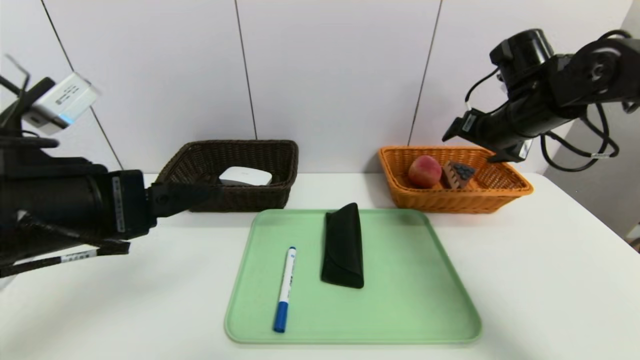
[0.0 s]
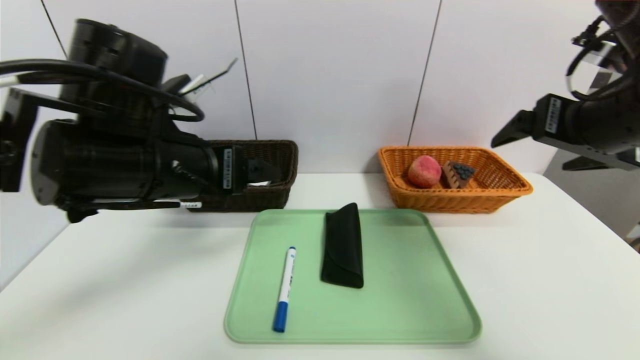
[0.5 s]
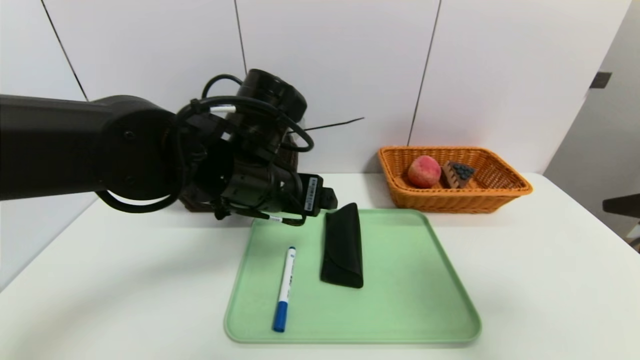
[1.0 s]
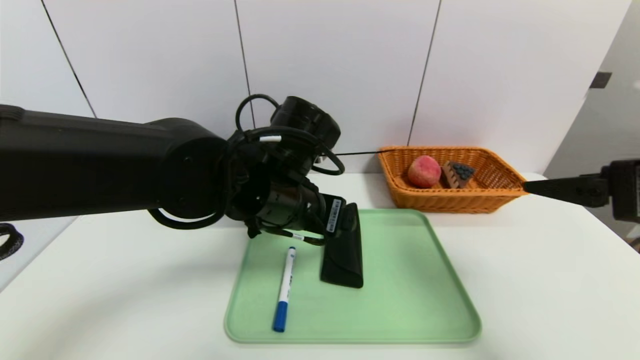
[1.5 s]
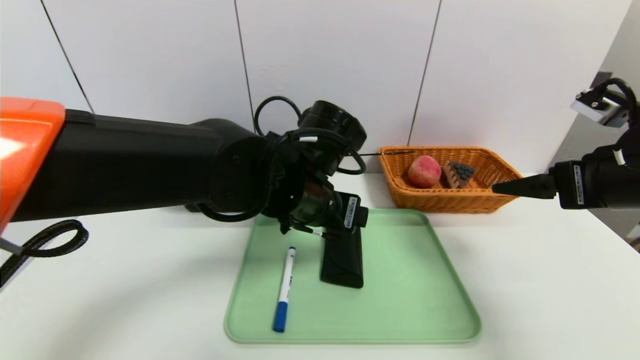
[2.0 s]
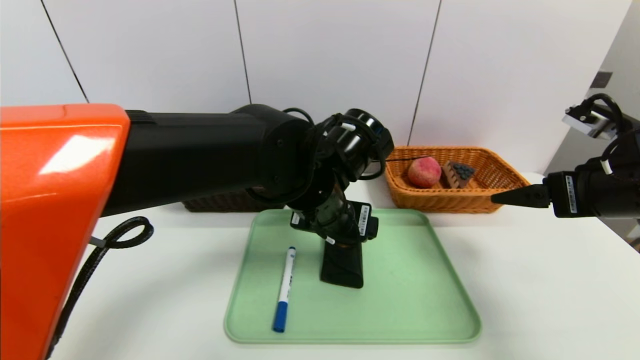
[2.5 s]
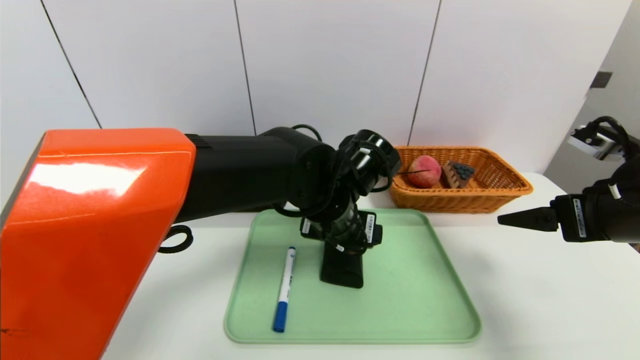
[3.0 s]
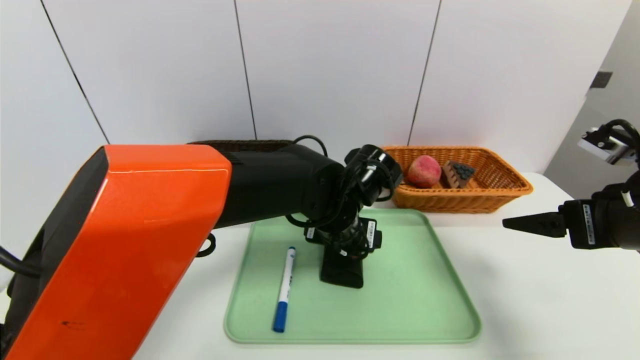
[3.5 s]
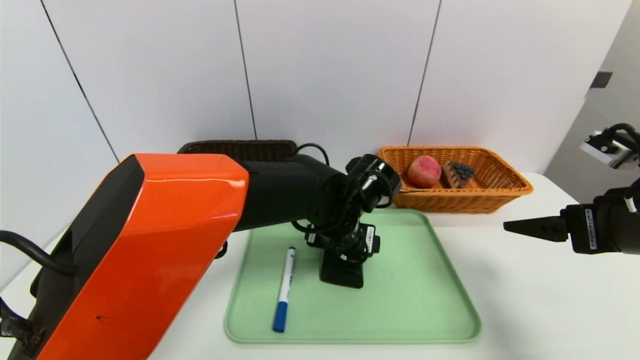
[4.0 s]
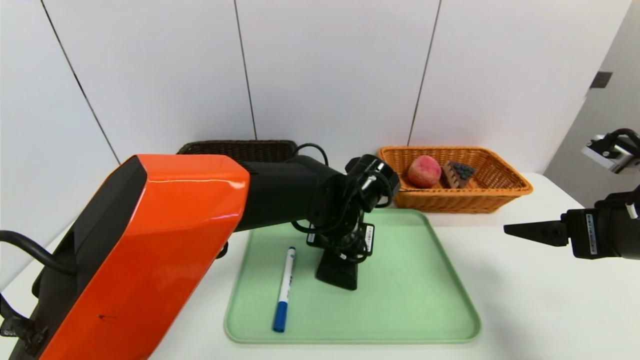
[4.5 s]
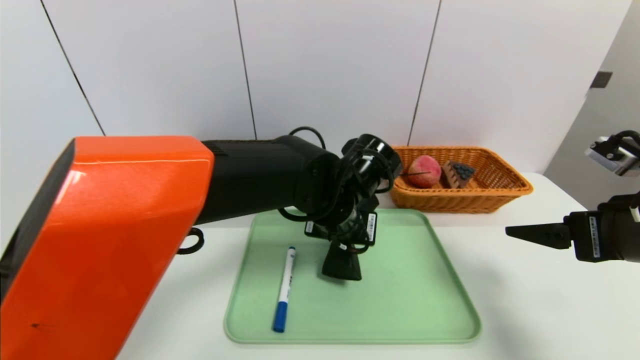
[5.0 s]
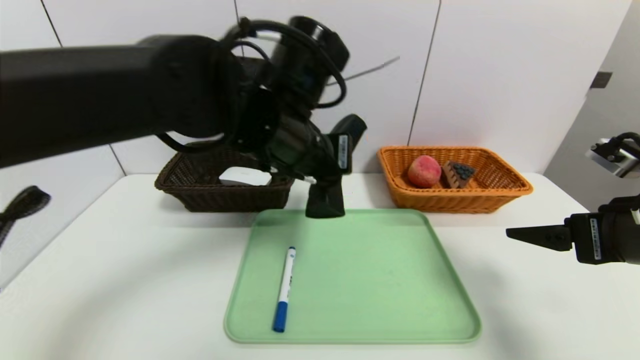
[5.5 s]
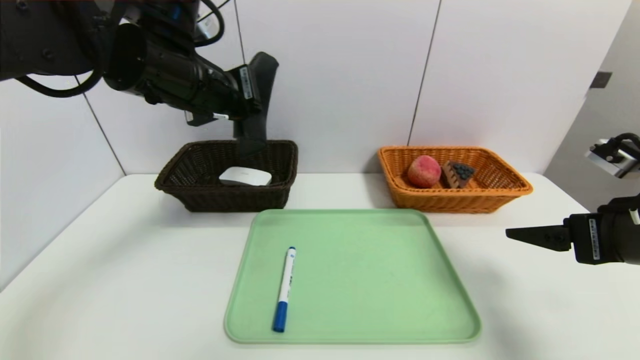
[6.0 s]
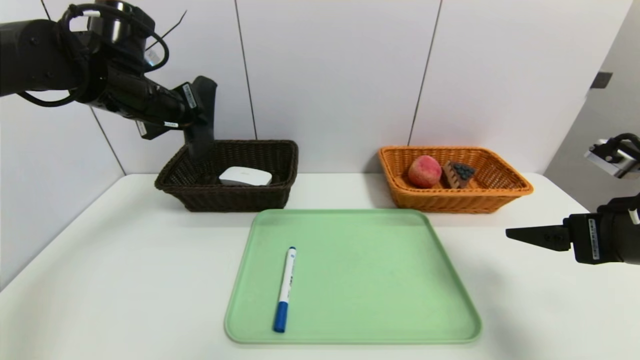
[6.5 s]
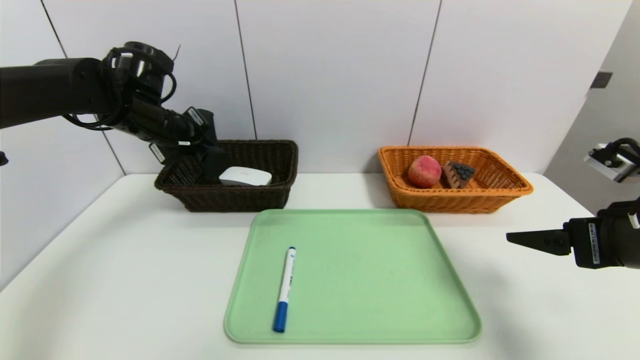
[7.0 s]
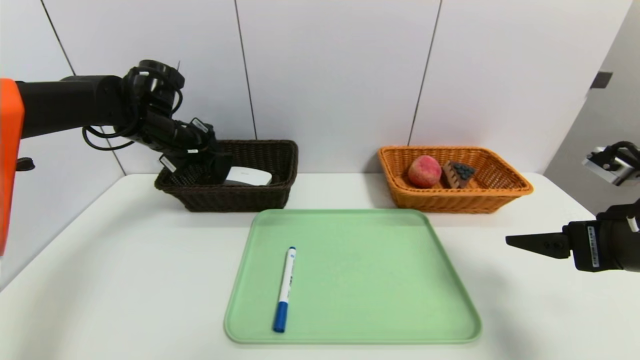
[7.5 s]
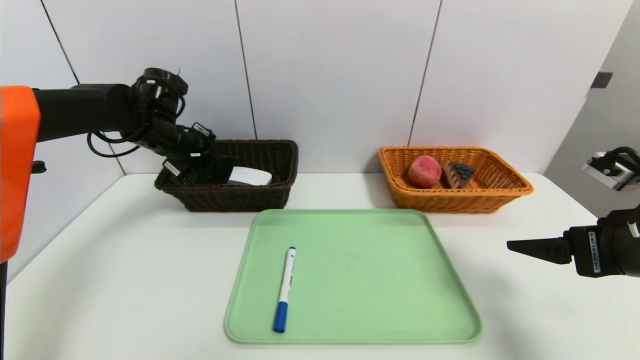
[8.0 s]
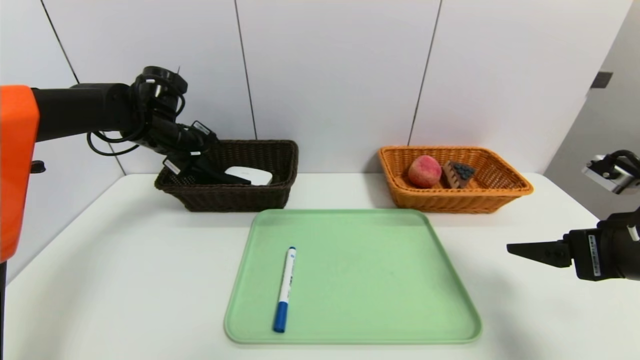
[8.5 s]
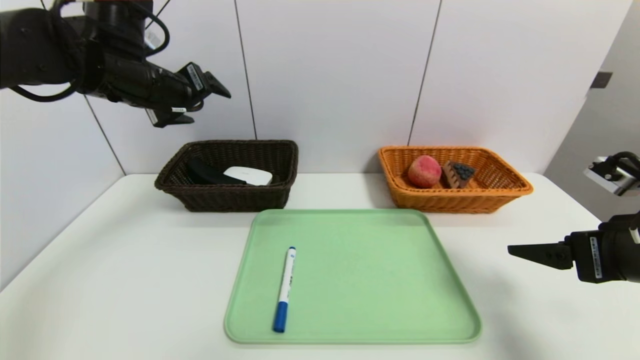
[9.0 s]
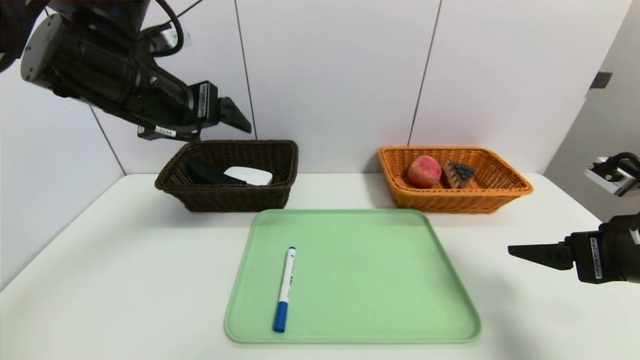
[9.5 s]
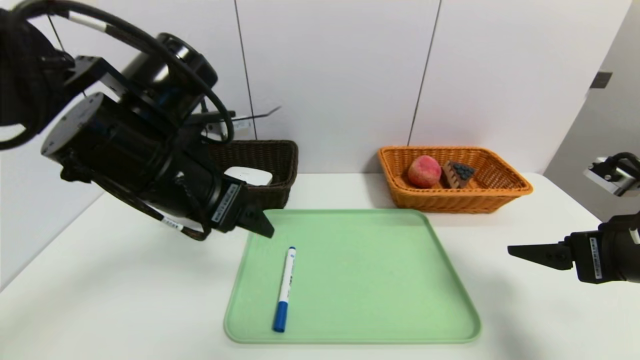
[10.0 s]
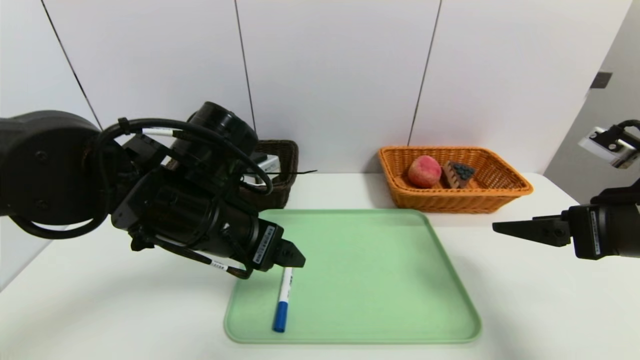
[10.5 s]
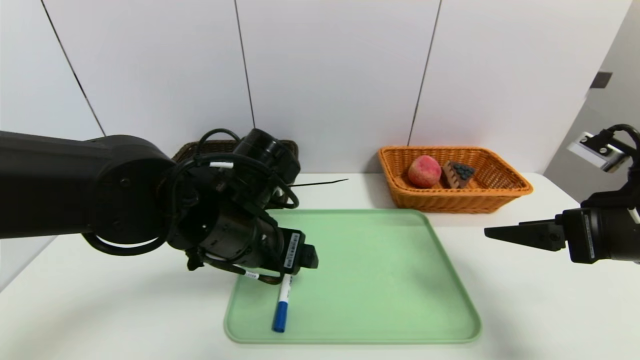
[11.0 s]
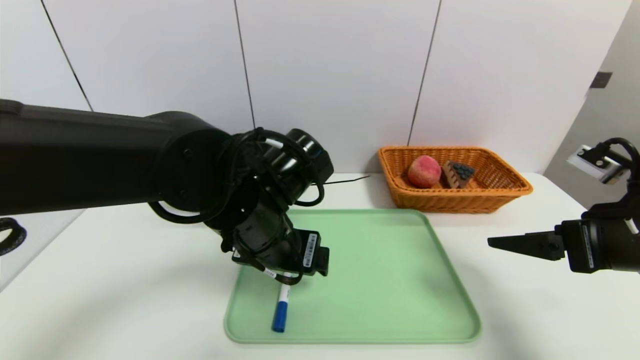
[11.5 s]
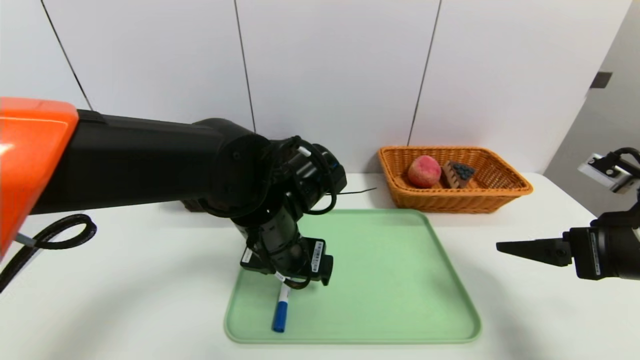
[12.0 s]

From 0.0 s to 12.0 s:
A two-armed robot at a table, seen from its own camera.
Task of the whole recording: place the food in the right basket with the right gripper, and place the non food items in the left basket with the left gripper.
Step, from 0.0 s to 8.5 s: Grasp the glasses case and put it in the left basket.
From 0.0 s to 2.0 s: The left gripper is displaced to the right and forward by roughly 25 cm, while the right gripper is displaced backward by some 15 cm.
From 2.0 s to 4.0 s: The left gripper travels downward and to the right by roughly 10 cm.
From 4.0 s to 6.0 s: The left gripper heads upward and to the left, covering approximately 25 cm, and closes its fingers.
From 6.0 s to 8.0 s: The left gripper heads forward, downward and to the left, covering approximately 20 cm.
From 8.0 s to 10.0 s: The left gripper travels backward and to the right by roughly 20 cm, and opens its fingers.
From 10.0 s to 12.0 s: The left gripper is displaced to the right and downward by approximately 15 cm.

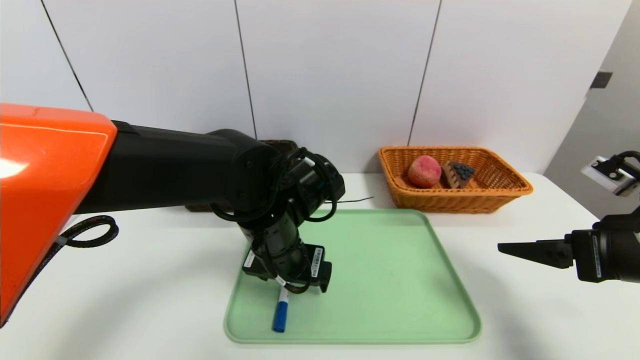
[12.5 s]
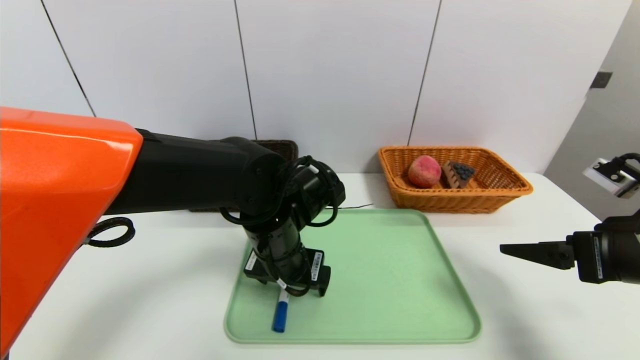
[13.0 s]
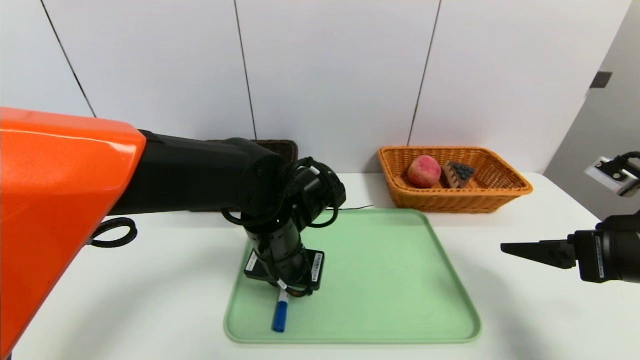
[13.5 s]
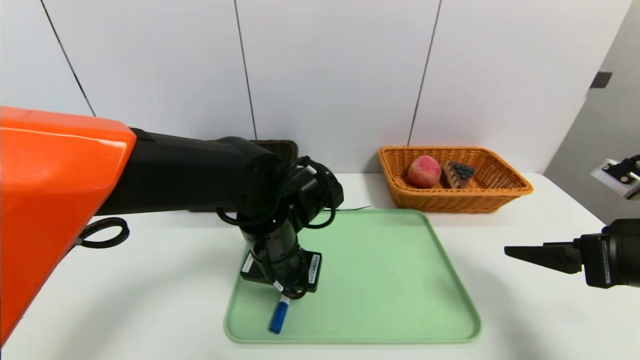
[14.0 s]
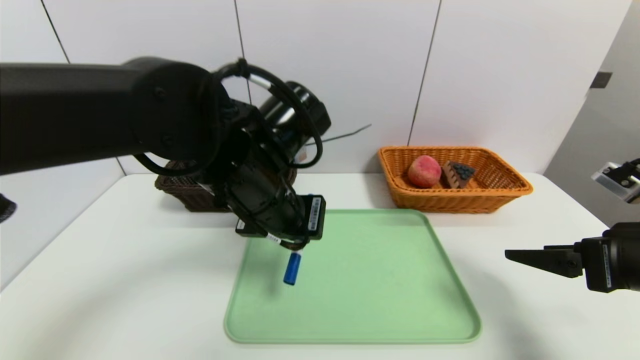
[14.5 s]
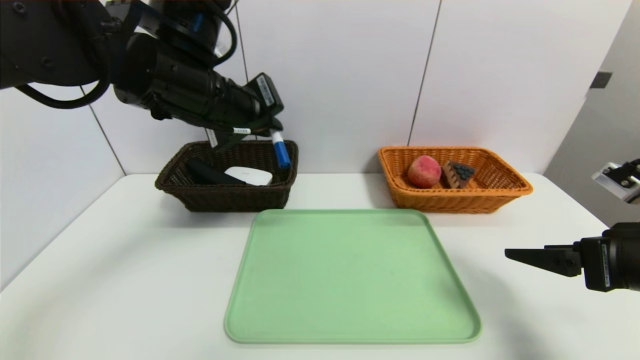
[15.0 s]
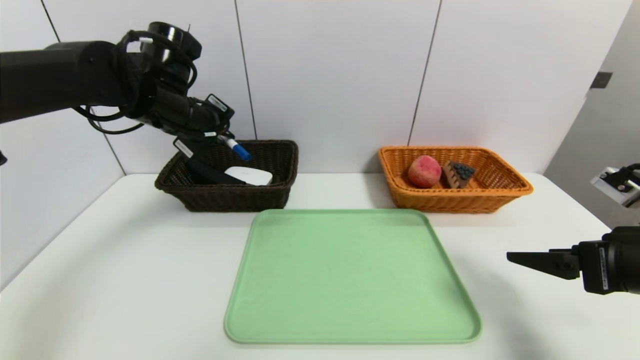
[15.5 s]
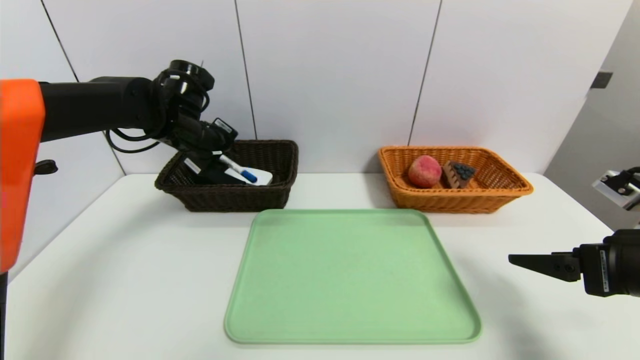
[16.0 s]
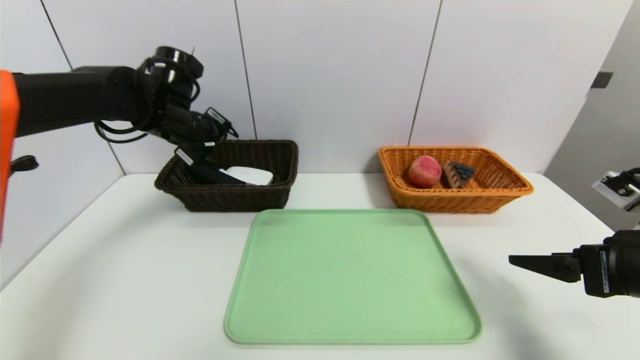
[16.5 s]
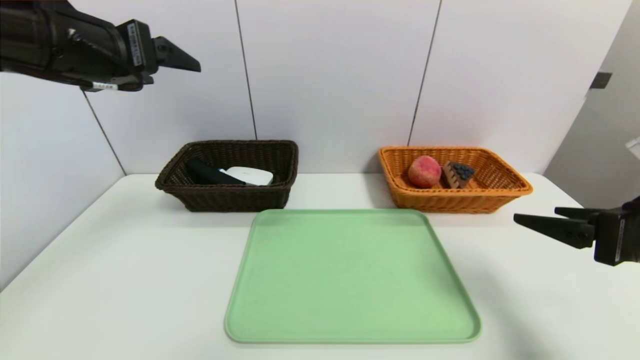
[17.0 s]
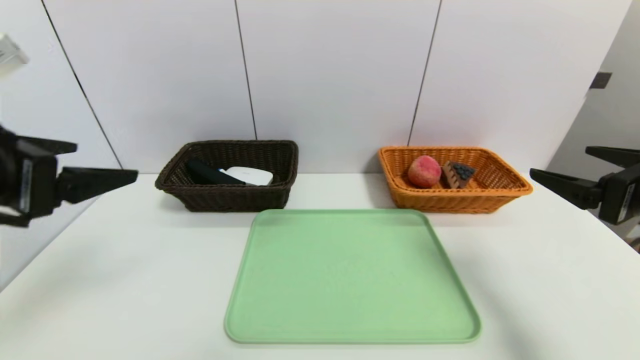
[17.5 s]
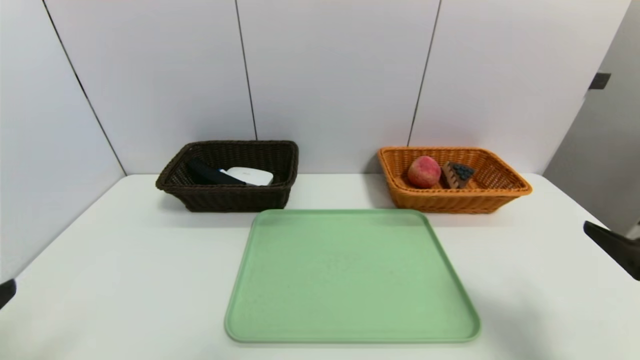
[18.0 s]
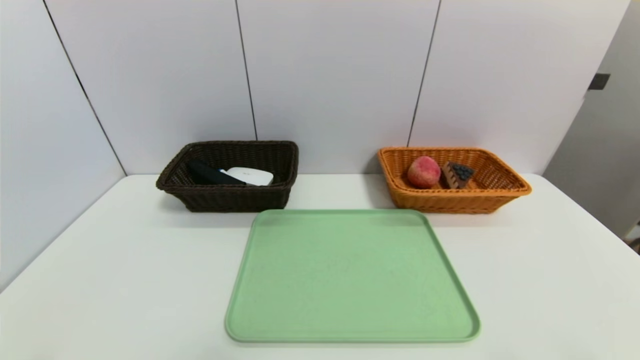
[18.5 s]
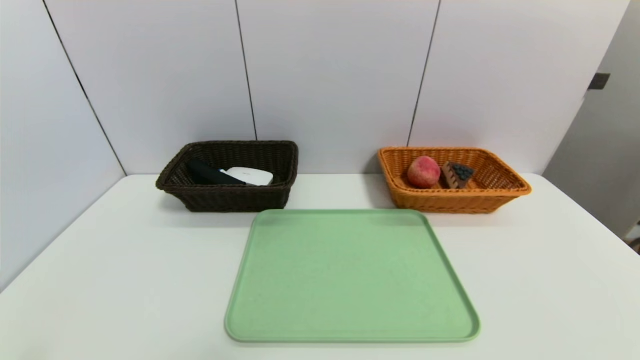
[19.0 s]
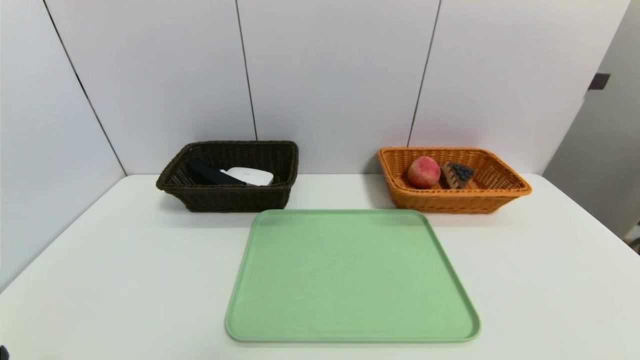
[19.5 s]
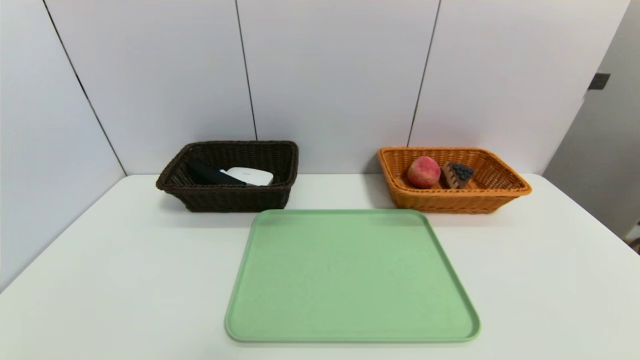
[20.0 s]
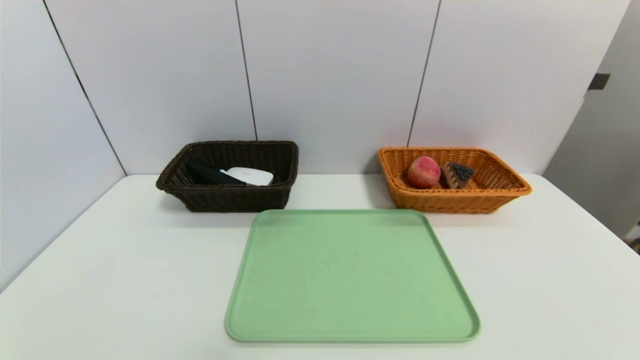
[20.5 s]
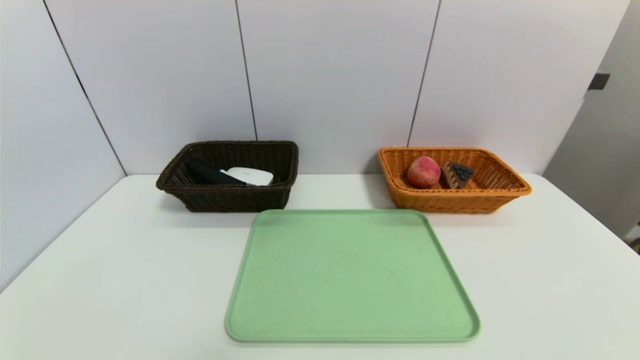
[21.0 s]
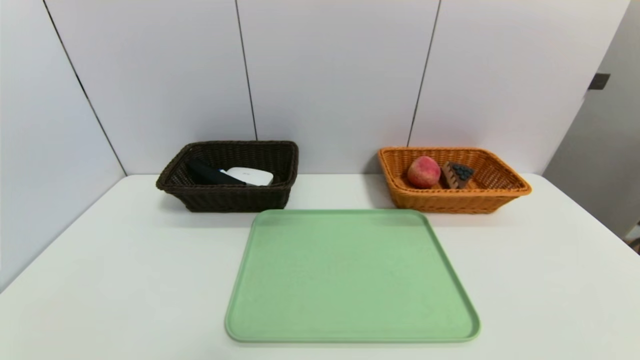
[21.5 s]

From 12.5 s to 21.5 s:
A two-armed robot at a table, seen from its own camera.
Task of the whole recording: place the food in the right basket with the right gripper, and place the non food items in the left basket with the left gripper.
Step, from 12.5 s to 16.0 s: Grasp the blue marker and put it in the left basket.
From 12.5 s to 14.5 s: The left gripper travels upward by roughly 5 cm, and closes its fingers.
From 14.5 s to 17.0 s: The left gripper moves to the left and upward, about 20 cm, and opens its fingers.
From 17.0 s to 19.5 s: The left gripper is displaced backward and downward by some 35 cm, while the right gripper heads backward and downward, covering approximately 25 cm.
